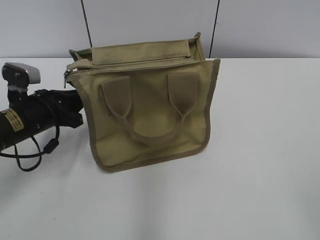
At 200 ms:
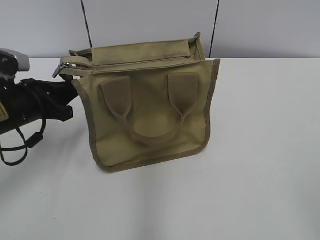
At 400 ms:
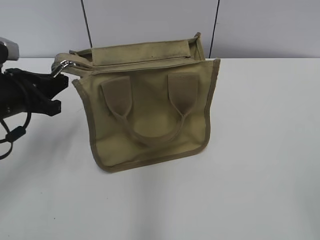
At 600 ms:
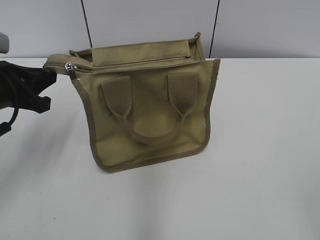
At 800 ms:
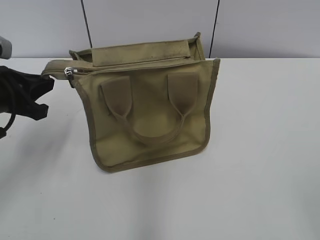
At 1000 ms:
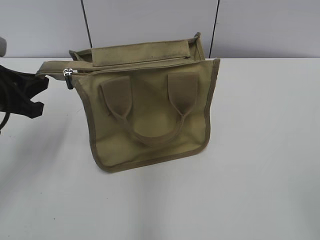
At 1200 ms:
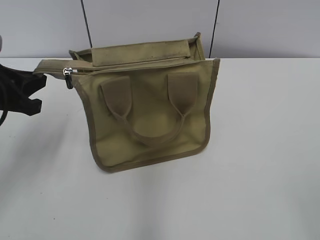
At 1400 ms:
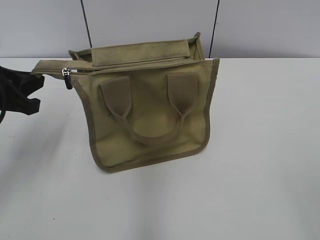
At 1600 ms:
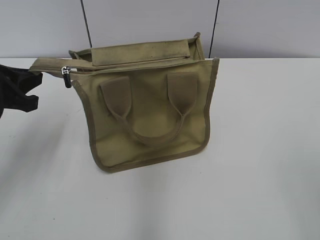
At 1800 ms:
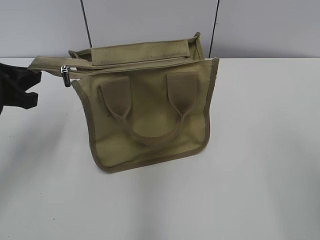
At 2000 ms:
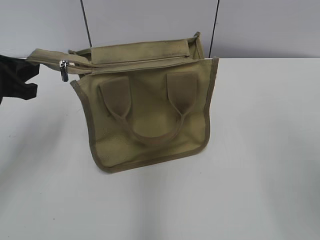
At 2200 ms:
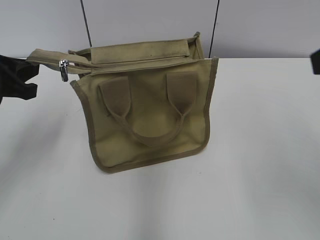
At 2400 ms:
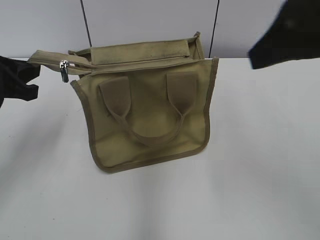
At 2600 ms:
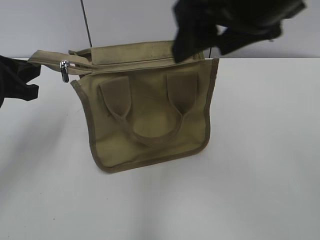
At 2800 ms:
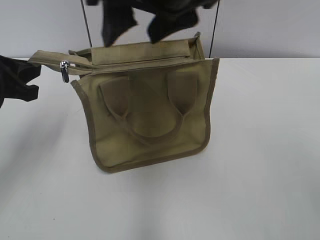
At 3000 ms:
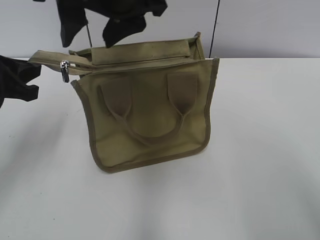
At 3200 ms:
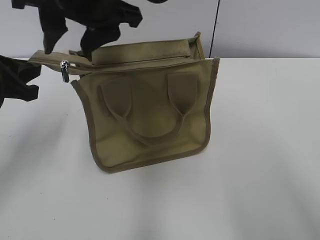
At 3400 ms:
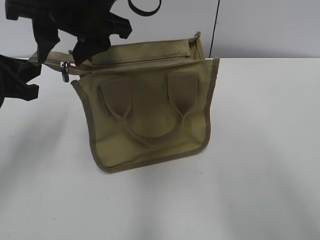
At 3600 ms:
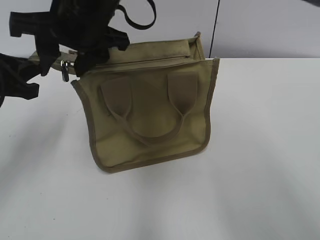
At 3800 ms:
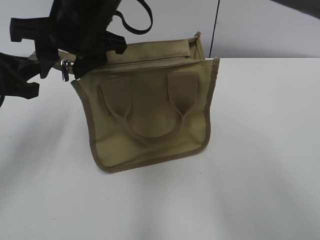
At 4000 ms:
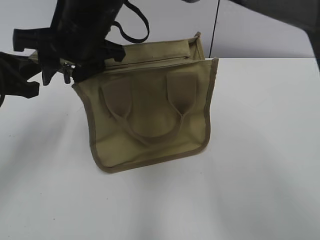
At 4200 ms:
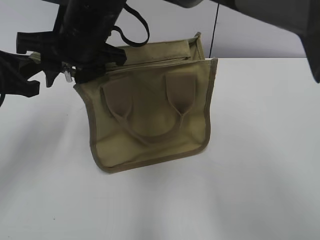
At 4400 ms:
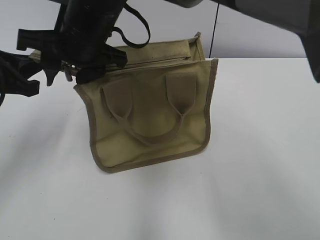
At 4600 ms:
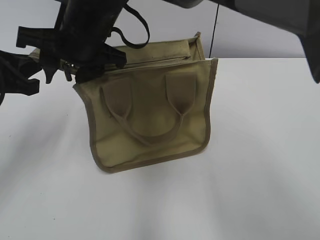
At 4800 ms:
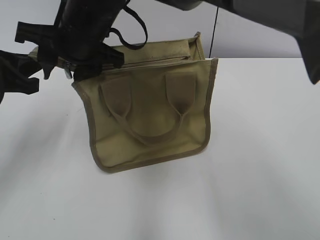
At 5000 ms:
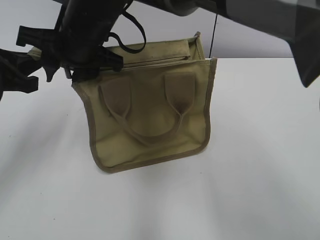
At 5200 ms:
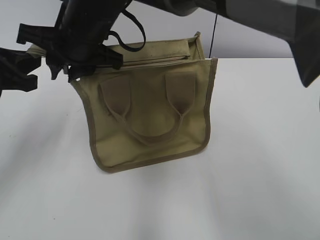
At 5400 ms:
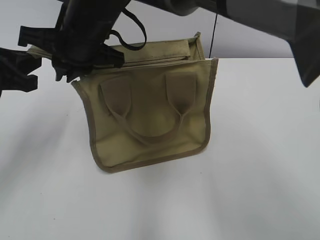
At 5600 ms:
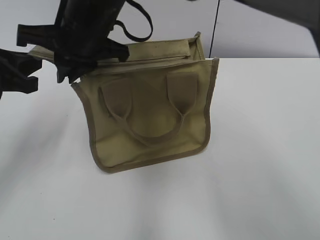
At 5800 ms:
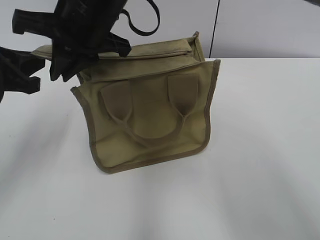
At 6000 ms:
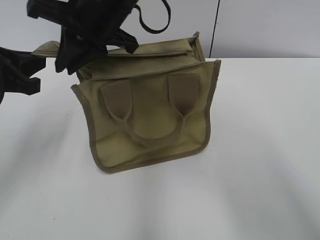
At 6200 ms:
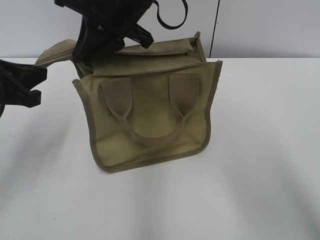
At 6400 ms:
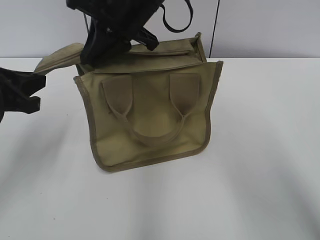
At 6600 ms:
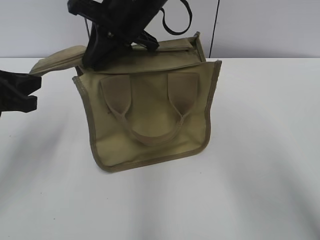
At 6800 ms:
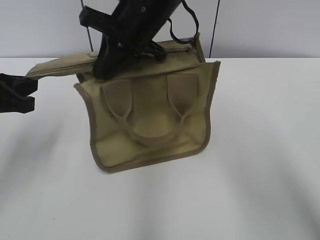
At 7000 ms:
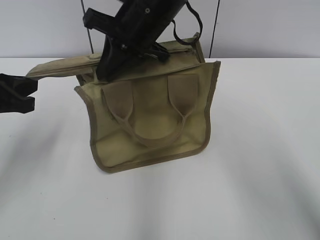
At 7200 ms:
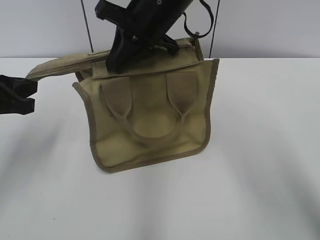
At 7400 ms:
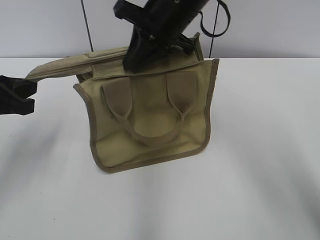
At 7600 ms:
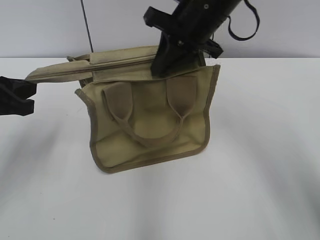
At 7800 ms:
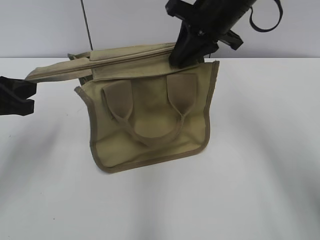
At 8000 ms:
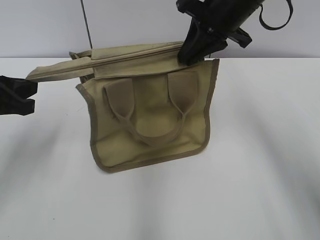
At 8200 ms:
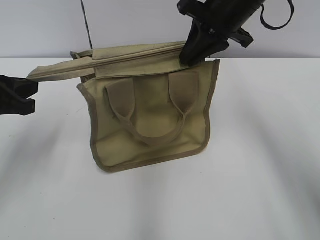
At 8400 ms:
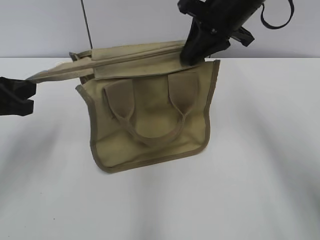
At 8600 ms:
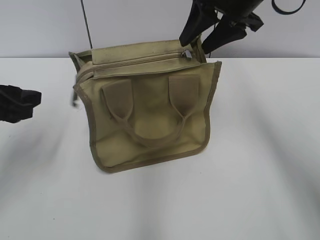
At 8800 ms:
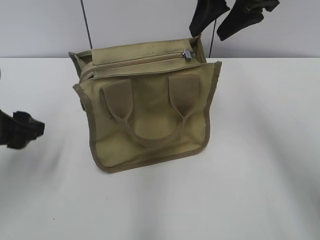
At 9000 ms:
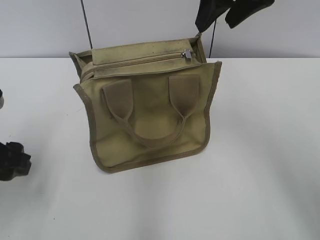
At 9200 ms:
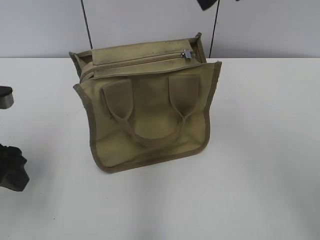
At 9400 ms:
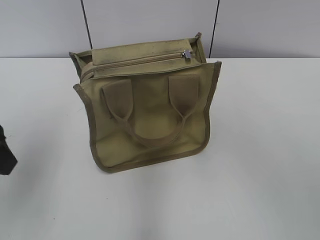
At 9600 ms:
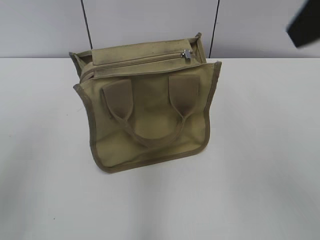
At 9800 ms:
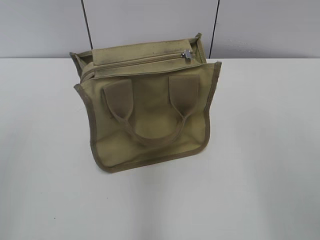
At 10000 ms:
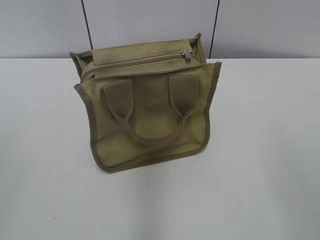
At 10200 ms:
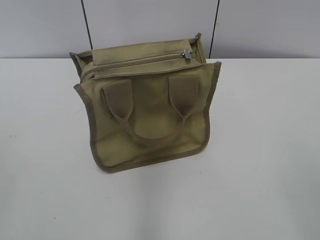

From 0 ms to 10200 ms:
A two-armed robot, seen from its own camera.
Step, from 0 ms to 8400 ms: Grab the zipper with your left hand.
From 0 ms to 1400 ms: The left gripper heads upward, covering roughly 10 cm.
From 1400 ms to 3000 ms: The right gripper heads to the left and forward, covering some 40 cm.
From 3000 ms to 4400 ms: The right gripper moves downward and to the left, some 10 cm.
From 4400 ms to 5800 ms: The right gripper closes its fingers.
From 5800 ms to 7200 ms: The right gripper is displaced to the right and forward by roughly 10 cm.
From 7200 ms to 8800 ms: The left gripper opens. The right gripper shifts about 15 cm to the right and upward, and opens.
From 8800 ms to 10200 ms: The left gripper shifts some 25 cm backward and upward, while the right gripper shifts about 35 cm backward.
